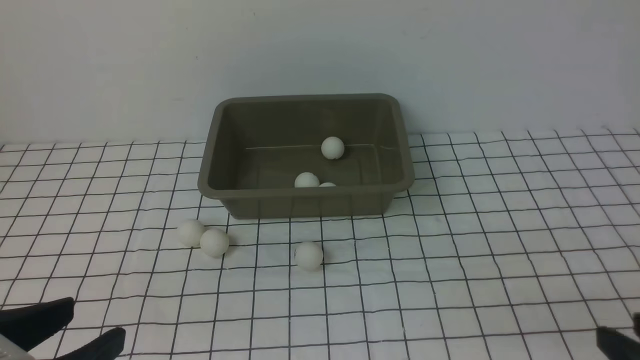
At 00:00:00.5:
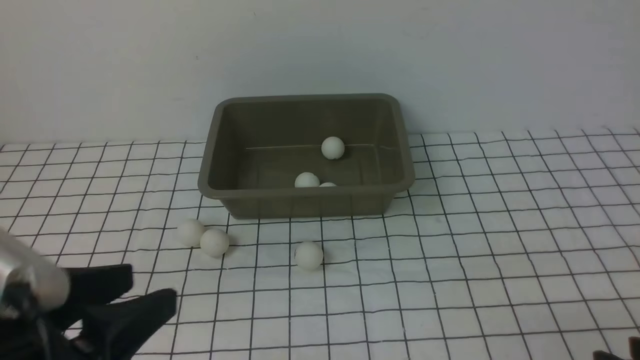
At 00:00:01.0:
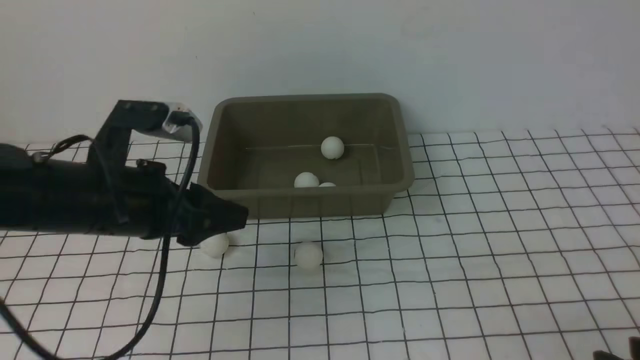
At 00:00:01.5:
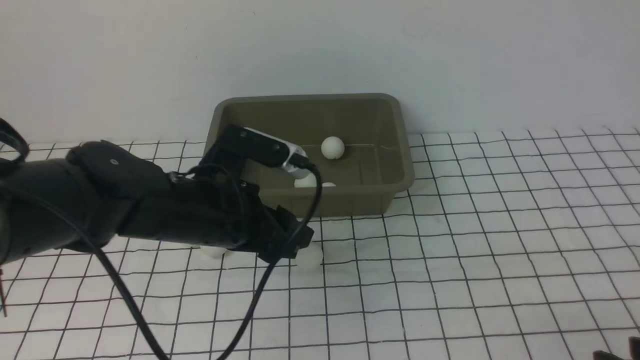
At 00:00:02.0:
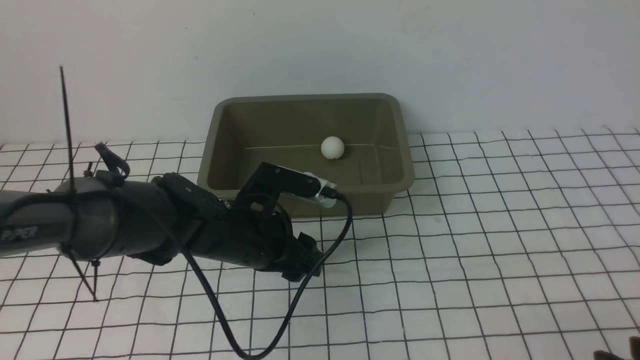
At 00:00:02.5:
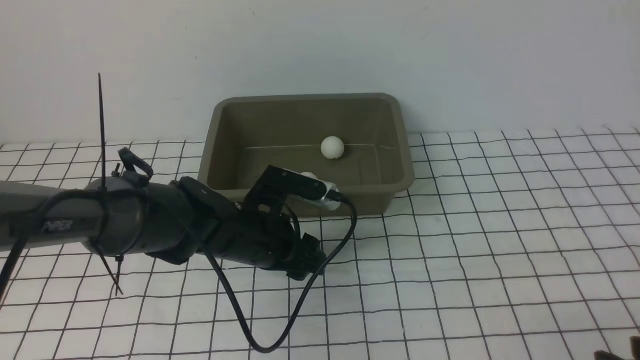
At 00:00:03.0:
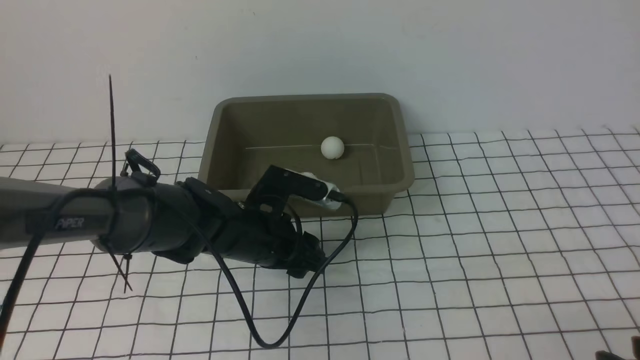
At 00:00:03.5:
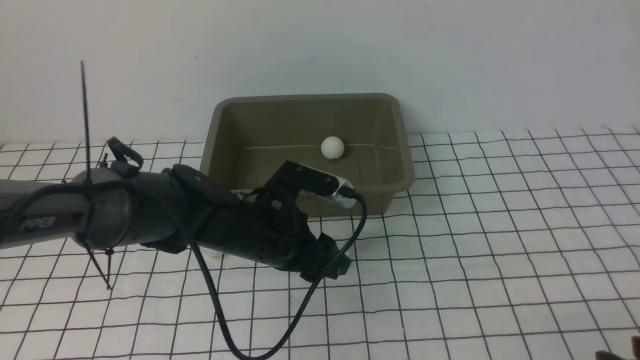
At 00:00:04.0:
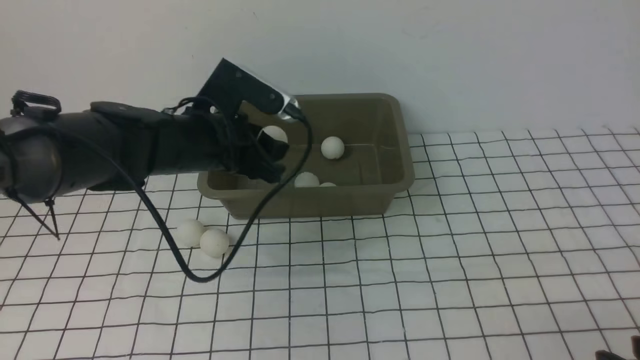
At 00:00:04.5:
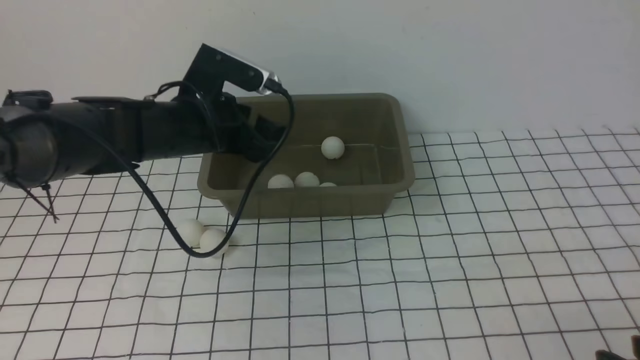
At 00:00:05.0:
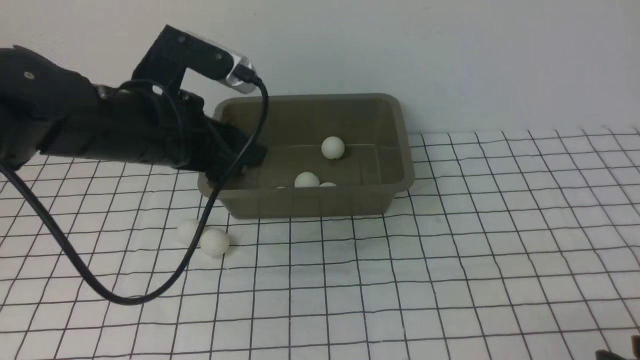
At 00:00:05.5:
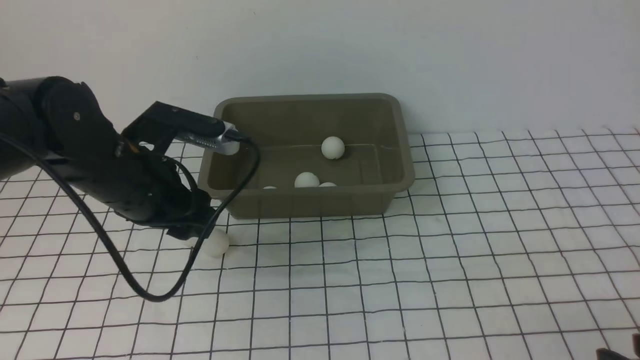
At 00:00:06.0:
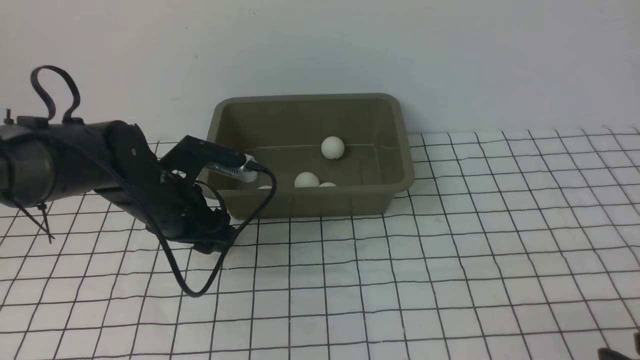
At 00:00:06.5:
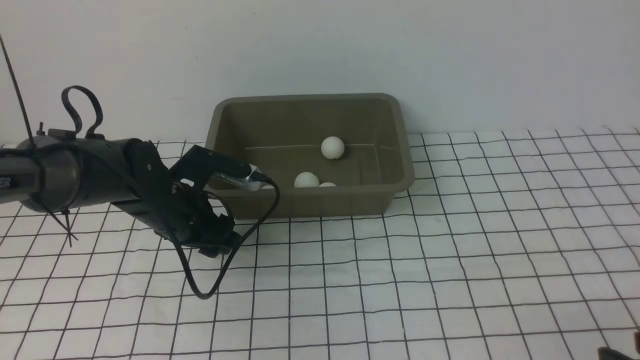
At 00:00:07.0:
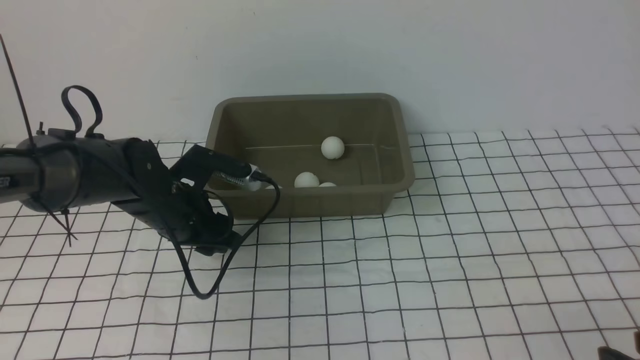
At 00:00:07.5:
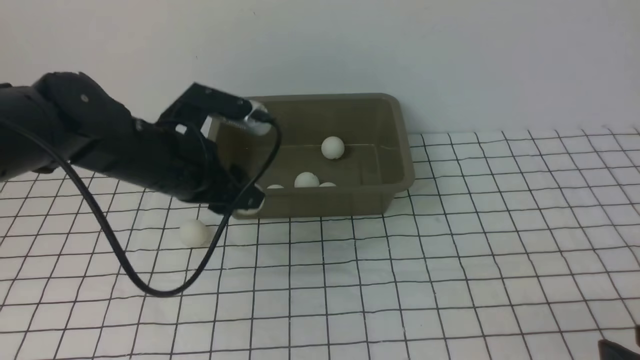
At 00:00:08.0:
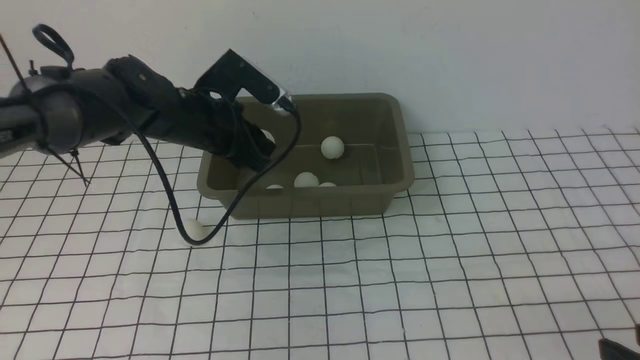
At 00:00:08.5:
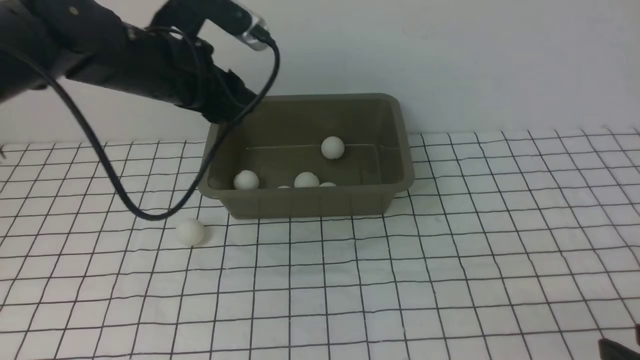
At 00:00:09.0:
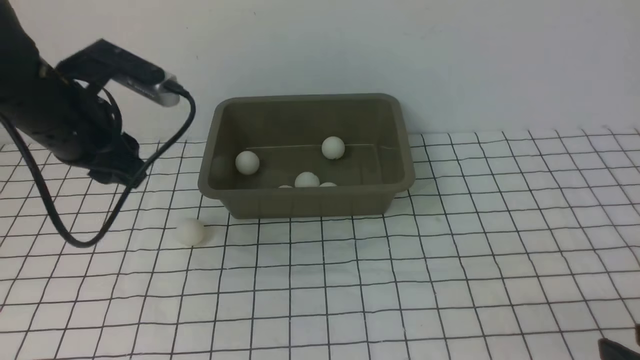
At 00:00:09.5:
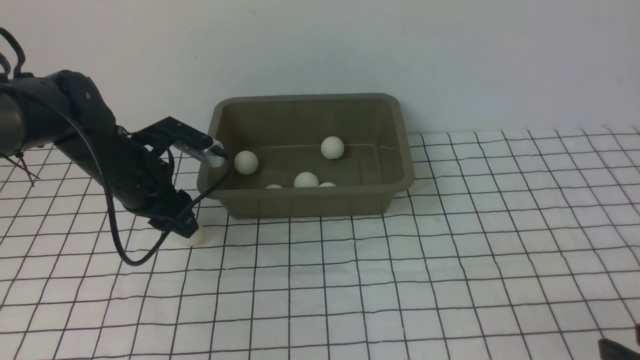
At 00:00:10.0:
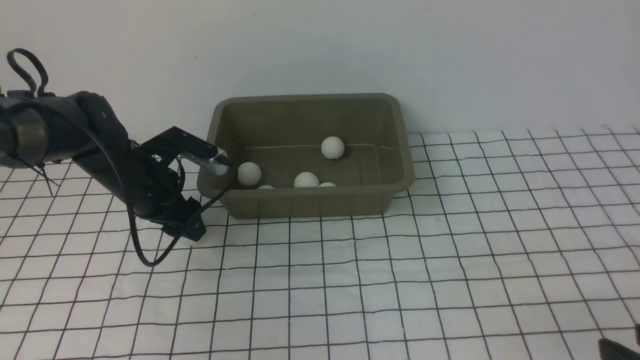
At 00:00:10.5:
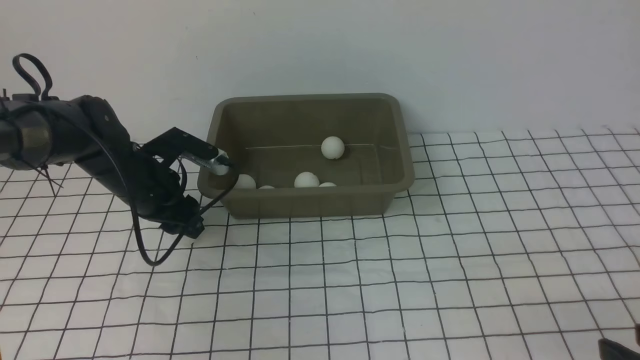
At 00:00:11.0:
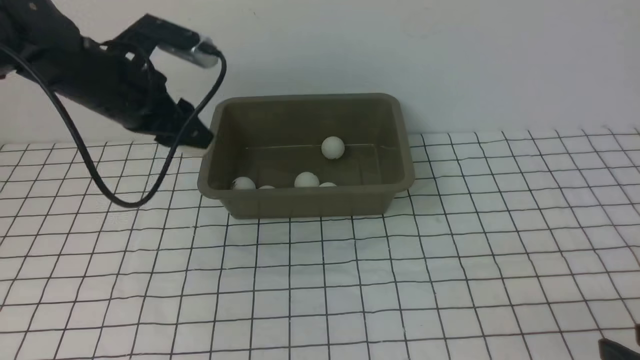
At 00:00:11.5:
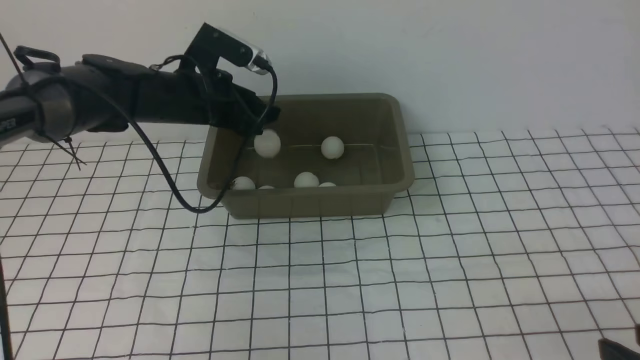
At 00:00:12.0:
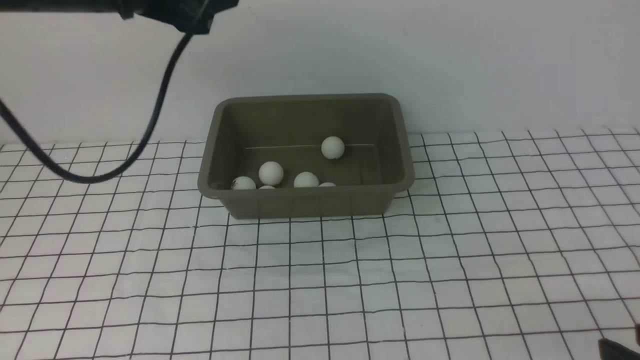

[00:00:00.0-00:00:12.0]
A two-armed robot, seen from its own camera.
Step, 00:00:00.0 to 00:00:03.5: use the left arm to clamp the table tennis ball closest to it.
Step, 00:00:05.0 to 00:00:07.0: use the left arm to clamp the table tennis ball closest to it.
Step, 00:00:07.5 to 00:00:08.0: use the left arm to put the table tennis ball into the box.
Step, 00:00:08.5 to 00:00:10.5: use the left arm to clamp the table tennis ball closest to it.
Step, 00:00:11.0 to 00:00:11.5: use the left arm to put the table tennis ball into the box.
00:00:00.0 to 00:00:02.0: The left gripper shifts some 30 cm forward, to the right and downward.
00:00:02.0 to 00:00:04.0: The left gripper travels upward and forward by approximately 10 cm, and closes.
00:00:04.0 to 00:00:06.0: The left gripper moves to the left, about 5 cm, and opens its fingers.
00:00:06.0 to 00:00:08.0: The left gripper is displaced forward and upward by roughly 10 cm, and closes its fingers.
00:00:08.0 to 00:00:10.0: The left gripper travels to the left and downward by roughly 10 cm, and opens up.
00:00:10.0 to 00:00:12.0: The left gripper shifts roughly 25 cm upward, and closes and opens again.

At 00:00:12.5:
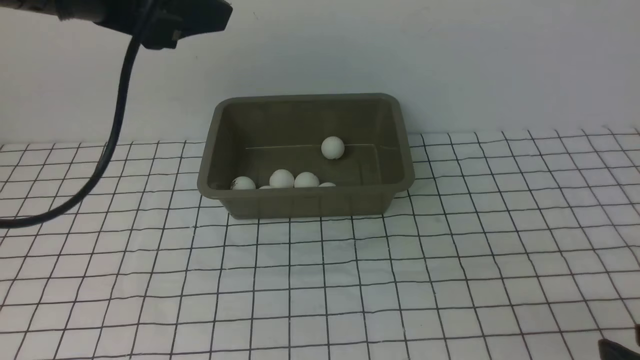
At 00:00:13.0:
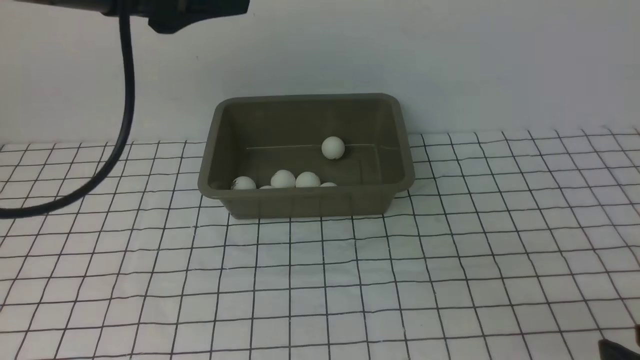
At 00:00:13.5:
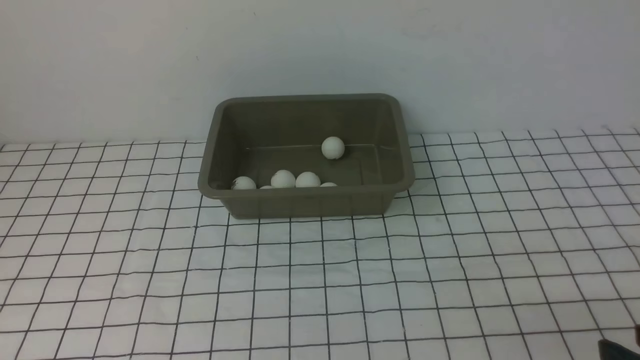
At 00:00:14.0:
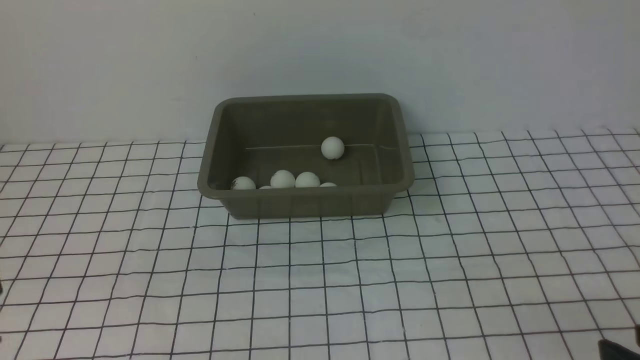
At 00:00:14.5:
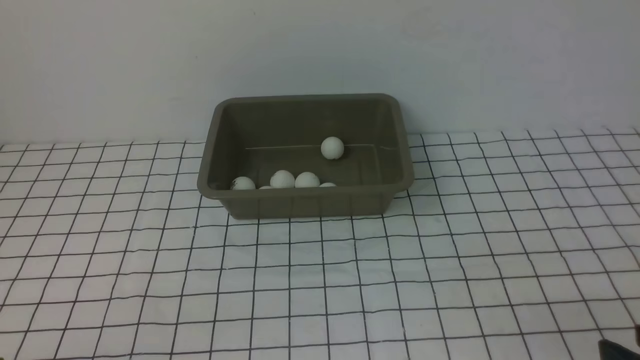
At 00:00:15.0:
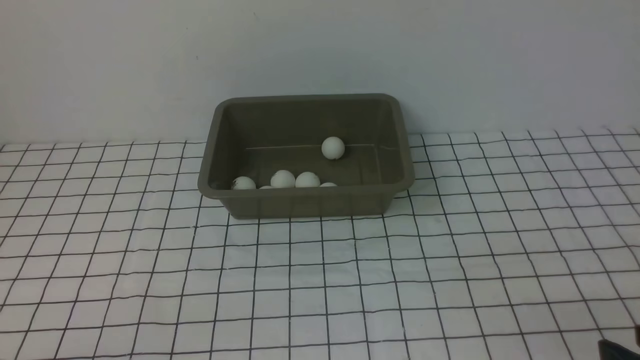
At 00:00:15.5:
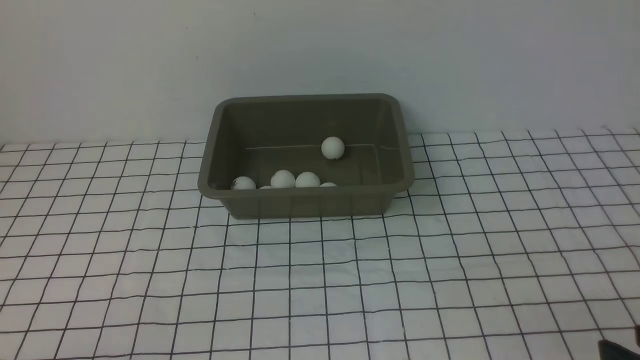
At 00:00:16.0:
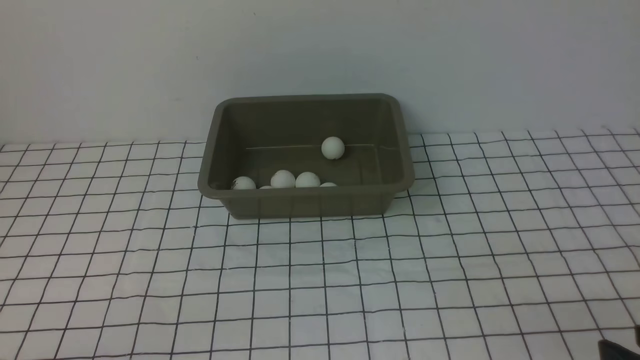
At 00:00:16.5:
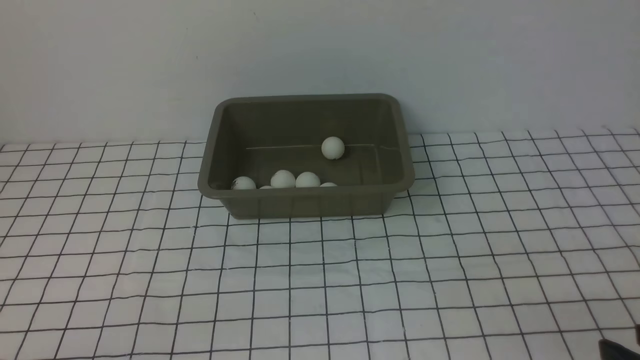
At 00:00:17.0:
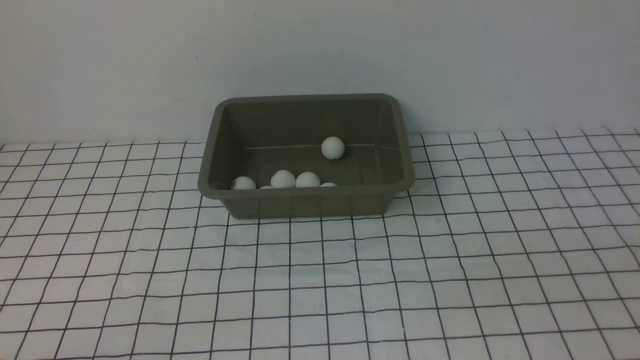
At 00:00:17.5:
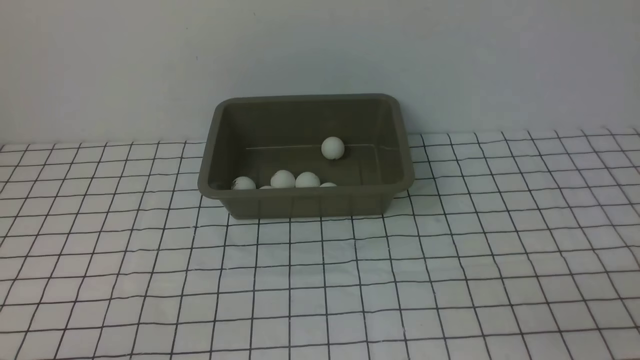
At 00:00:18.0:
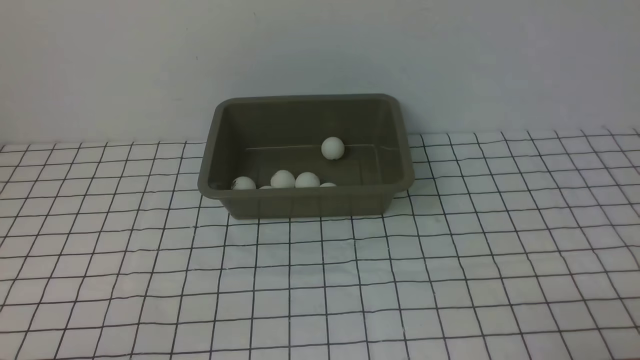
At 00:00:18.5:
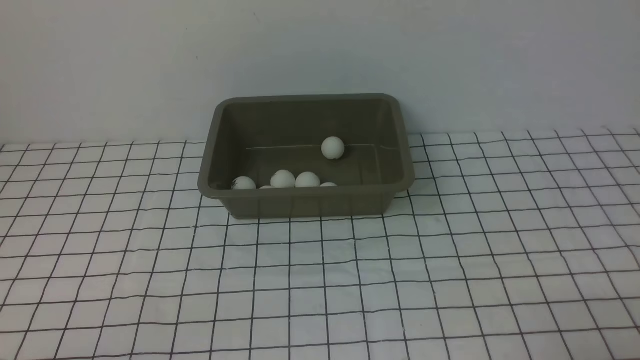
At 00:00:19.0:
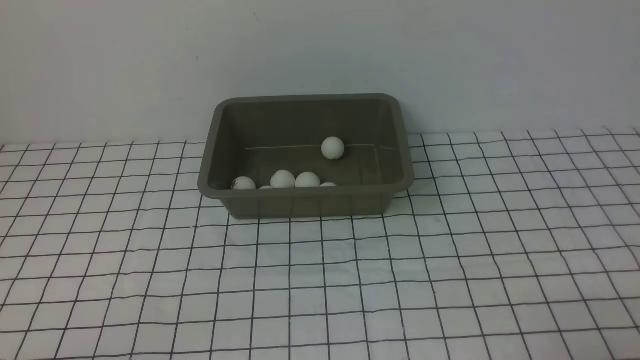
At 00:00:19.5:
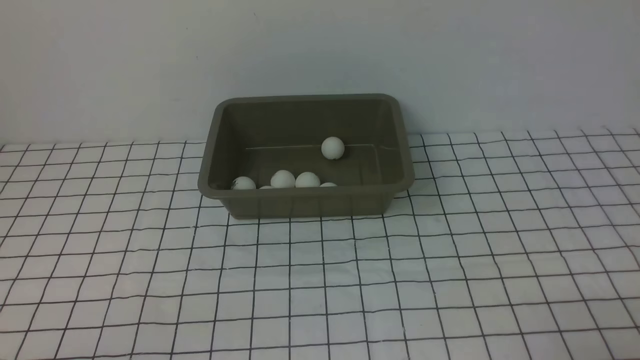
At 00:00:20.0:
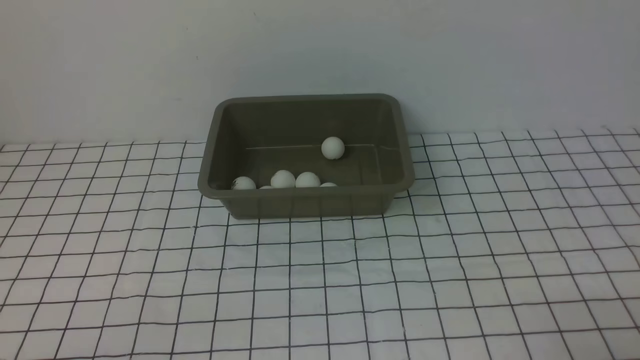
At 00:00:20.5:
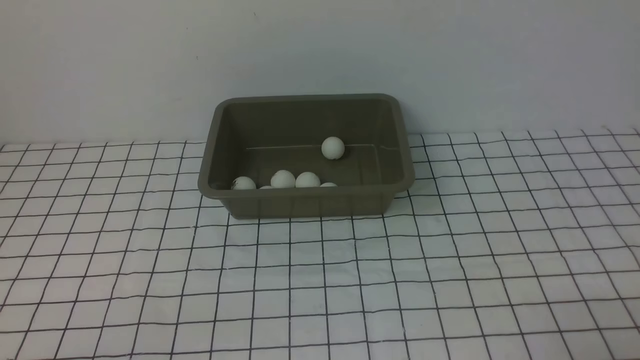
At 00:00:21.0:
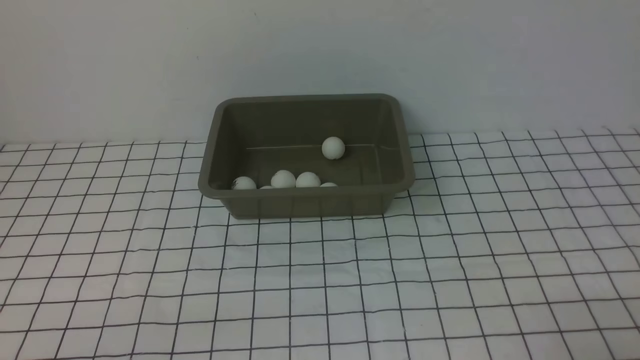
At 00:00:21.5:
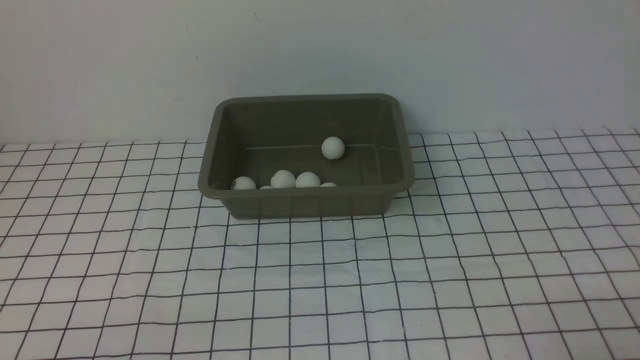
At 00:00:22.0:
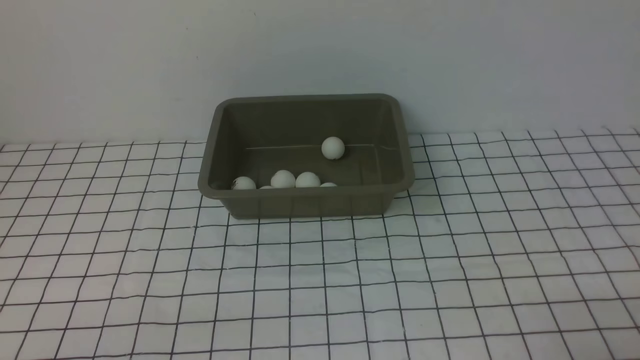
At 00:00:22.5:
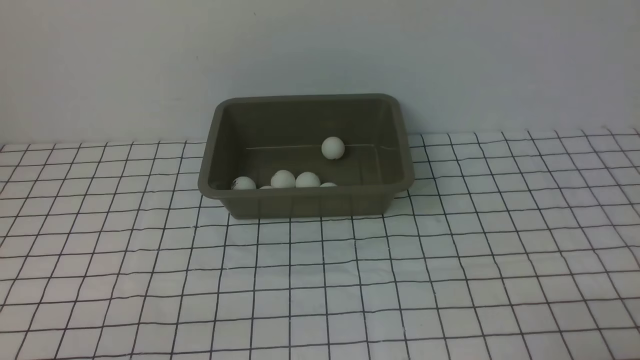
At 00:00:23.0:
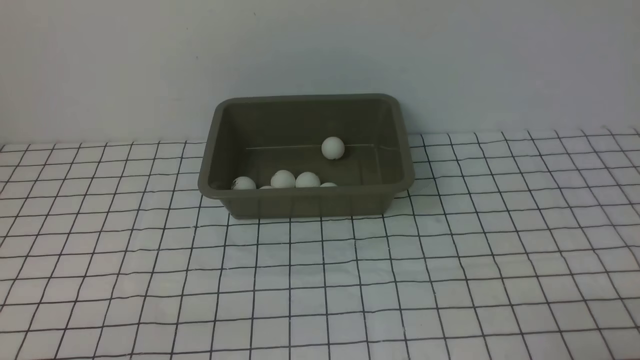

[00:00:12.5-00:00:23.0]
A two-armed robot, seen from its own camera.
00:00:12.5 to 00:00:14.5: The left gripper travels downward and backward by some 35 cm.
00:00:21.0 to 00:00:23.0: The two grippers keep their place.
